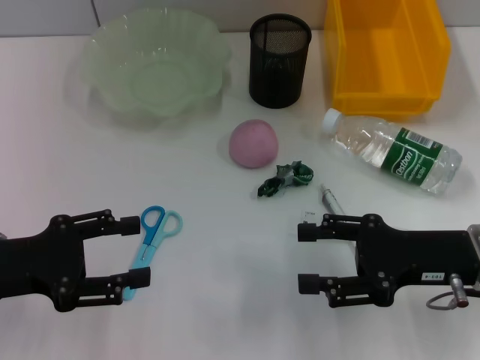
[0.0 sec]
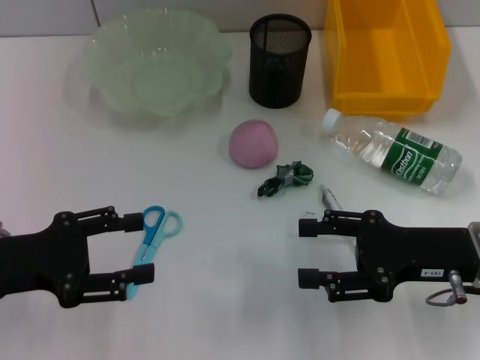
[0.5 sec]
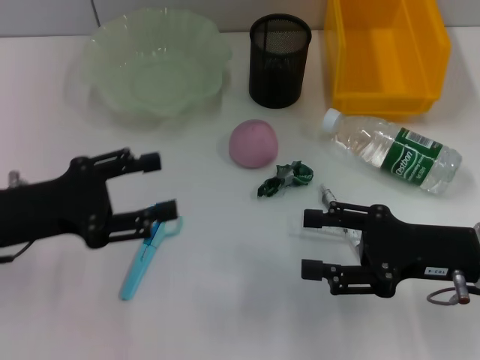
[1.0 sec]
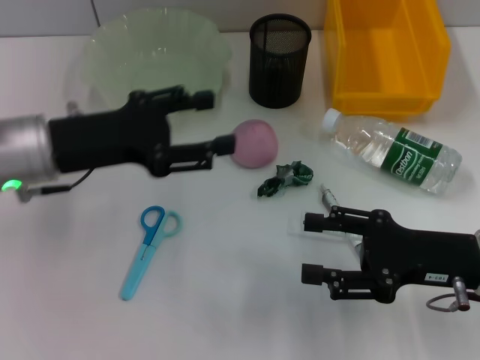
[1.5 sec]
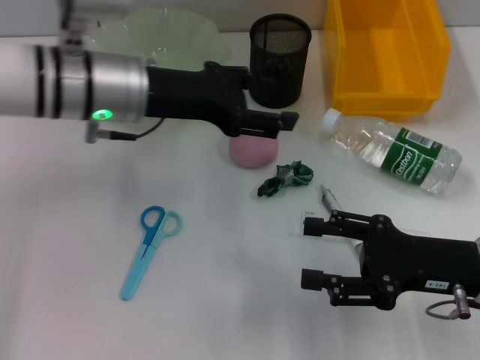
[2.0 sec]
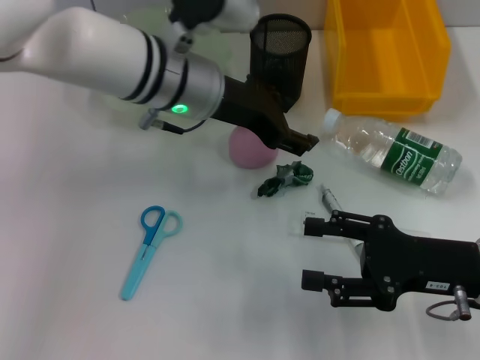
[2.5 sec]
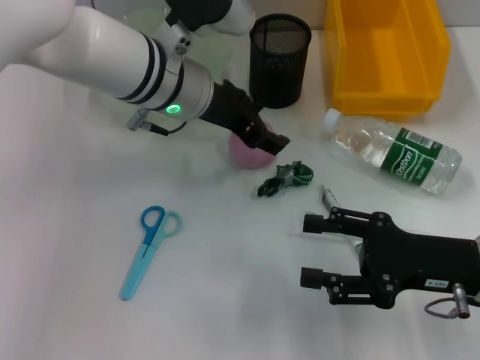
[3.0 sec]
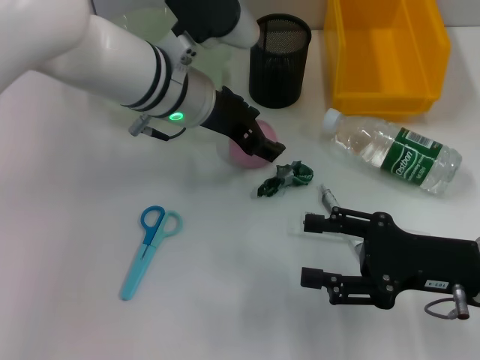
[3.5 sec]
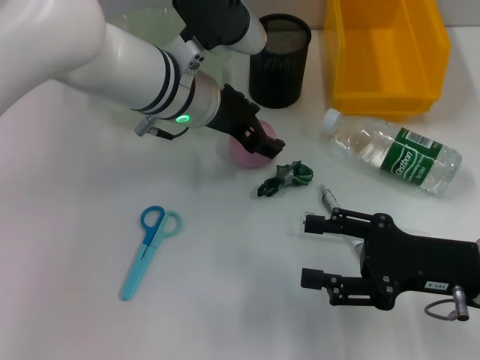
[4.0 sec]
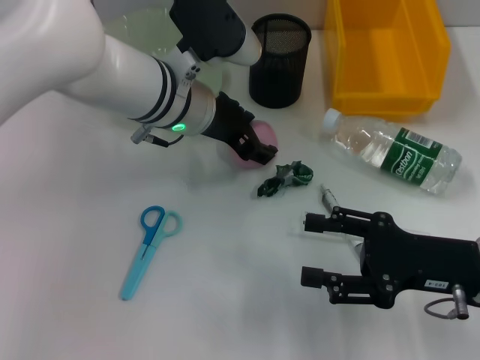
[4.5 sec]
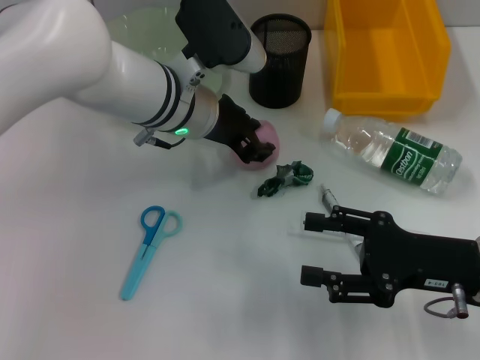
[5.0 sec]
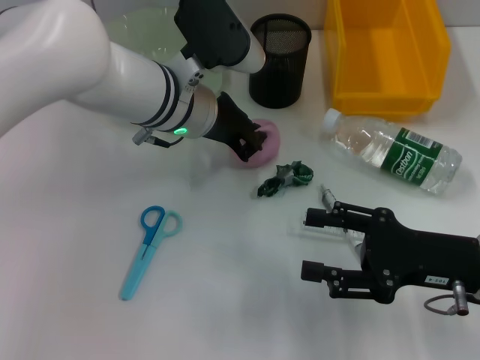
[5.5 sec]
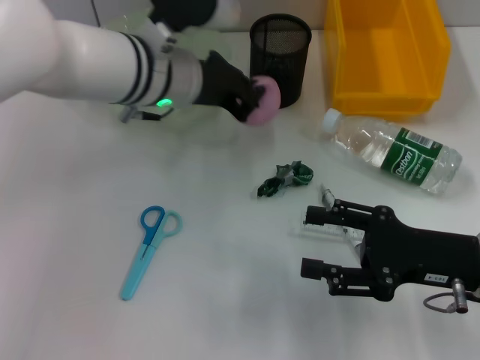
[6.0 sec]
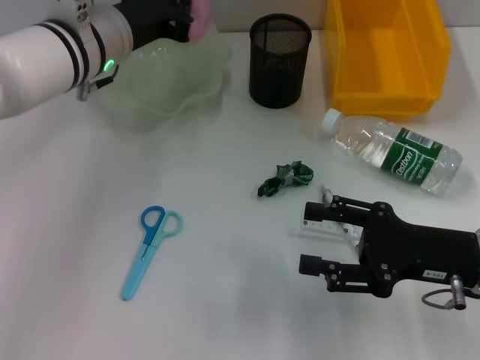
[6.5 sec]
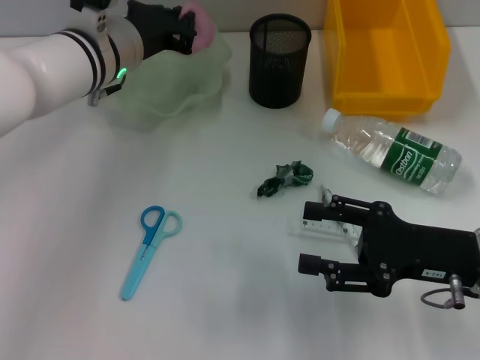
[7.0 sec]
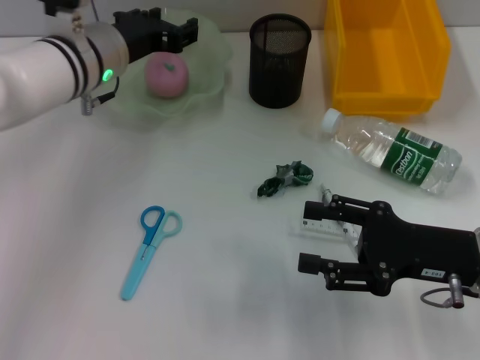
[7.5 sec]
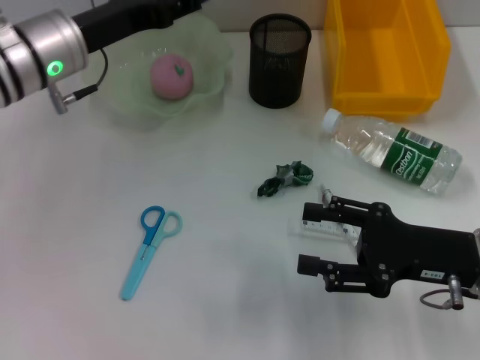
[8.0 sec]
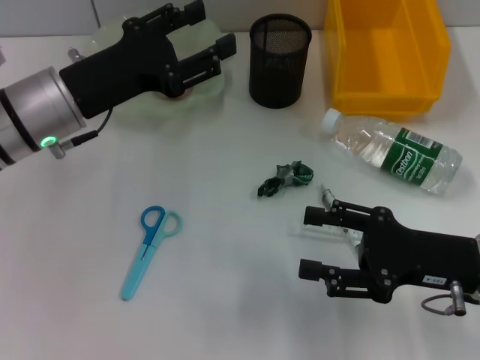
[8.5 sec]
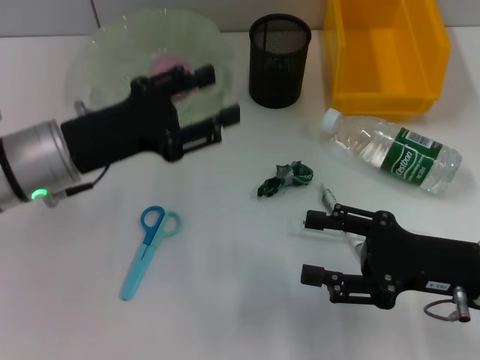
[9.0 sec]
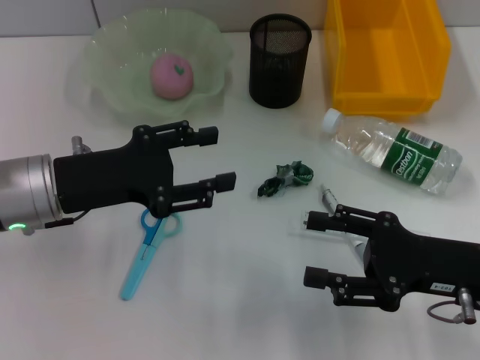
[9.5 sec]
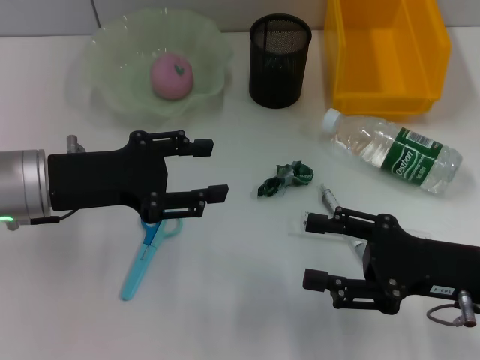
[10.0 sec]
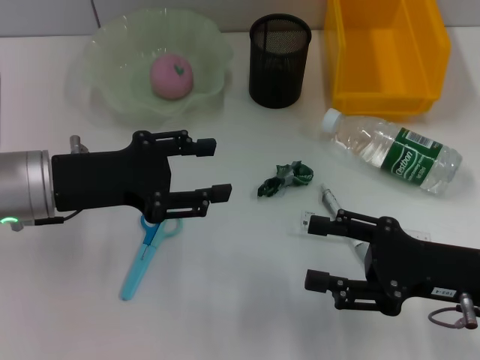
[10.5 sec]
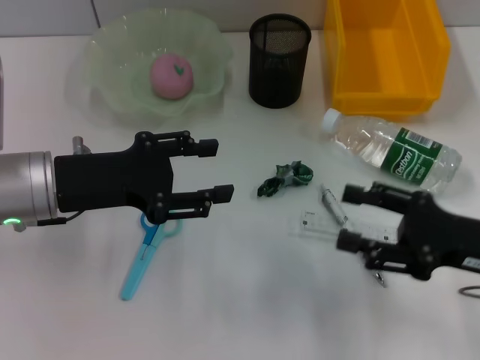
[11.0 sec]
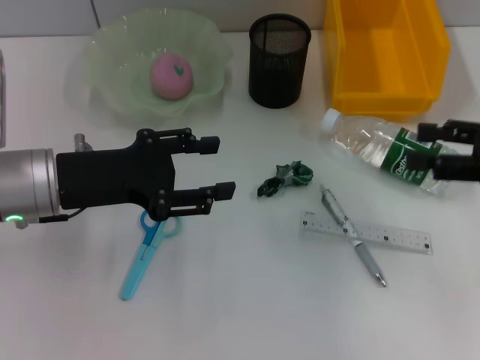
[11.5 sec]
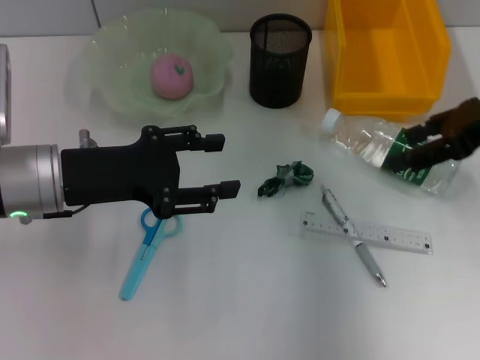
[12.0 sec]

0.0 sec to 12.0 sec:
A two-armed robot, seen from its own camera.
Step, 0.0 sec to 5.0 sec: Grab the peach with the left hand.
Step, 5.5 sec to 7.0 sec: Place the peach into the fruit bowl with the left hand.
0.0 sec to 2.0 sec: The left gripper travels to the right, forward and upward by approximately 20 cm.
2.0 sec to 4.0 sec: The left gripper is displaced to the right by some 5 cm.
4.0 sec to 6.0 sec: The left gripper closes its fingers.
6.0 sec to 8.0 sec: The left gripper shifts roughly 10 cm to the left, and opens its fingers.
8.0 sec to 10.0 sec: The left gripper is displaced backward by about 10 cm.
10.0 sec to 12.0 sec: The right gripper shifts about 20 cm upward and forward.

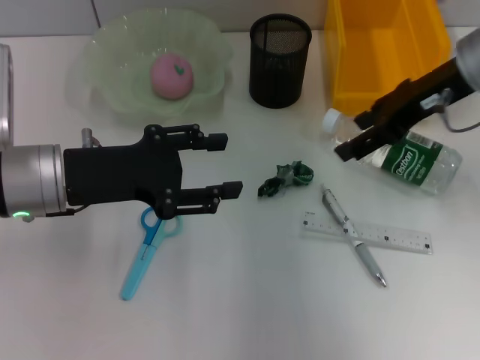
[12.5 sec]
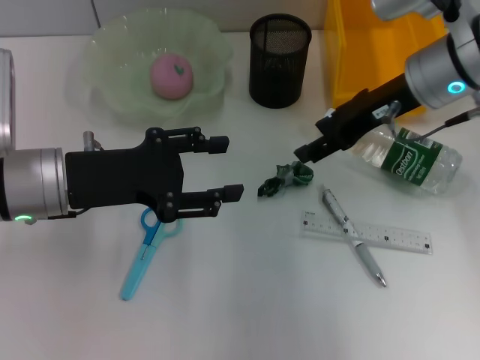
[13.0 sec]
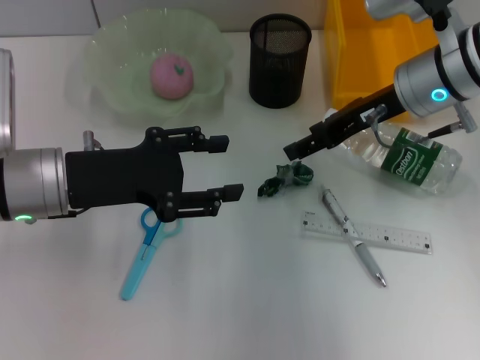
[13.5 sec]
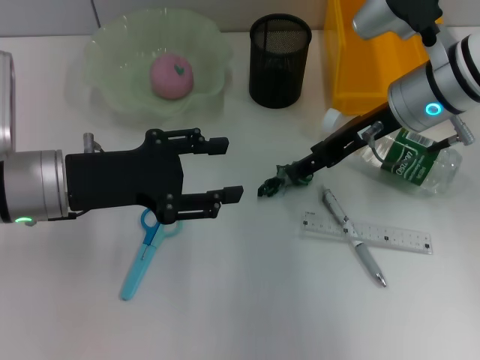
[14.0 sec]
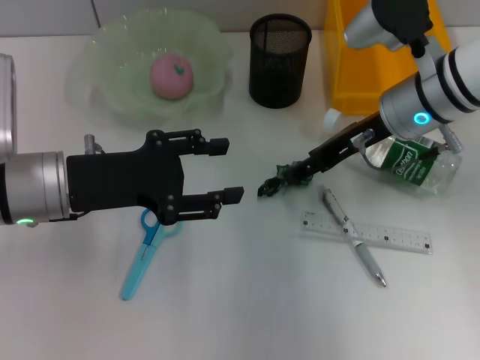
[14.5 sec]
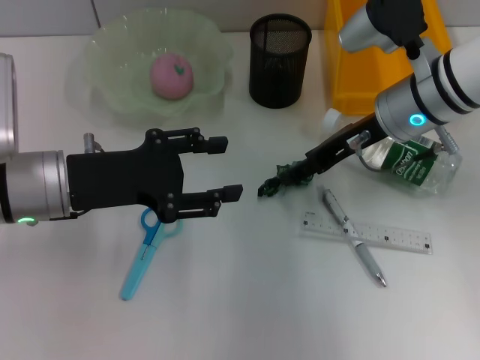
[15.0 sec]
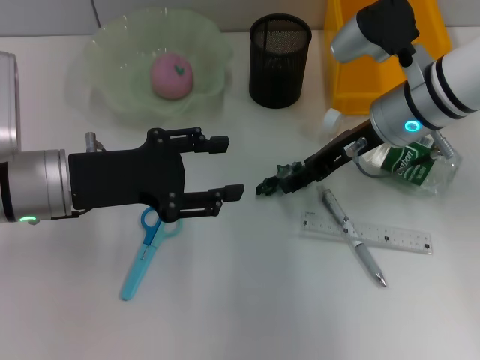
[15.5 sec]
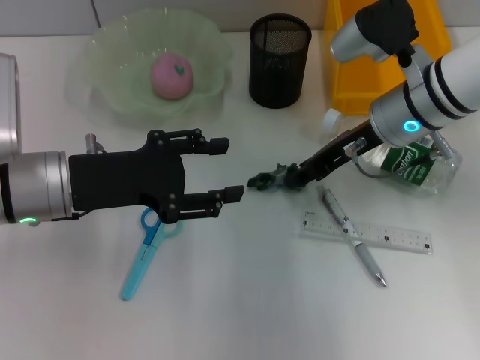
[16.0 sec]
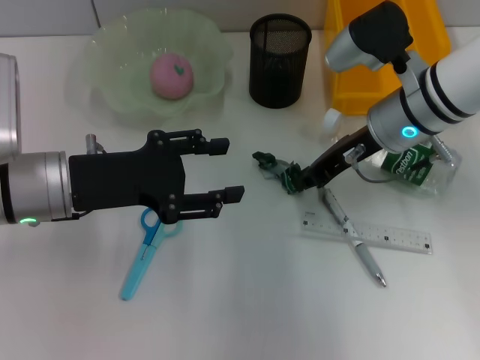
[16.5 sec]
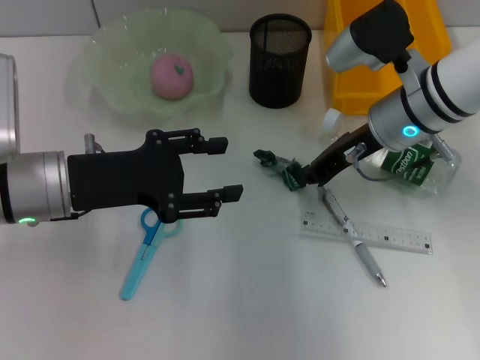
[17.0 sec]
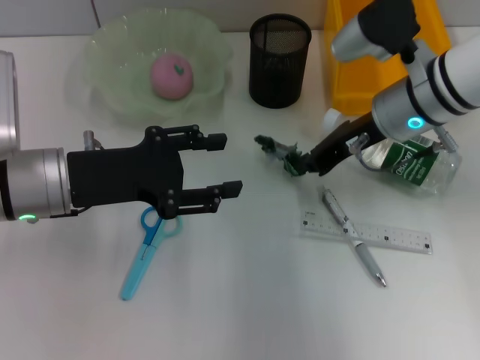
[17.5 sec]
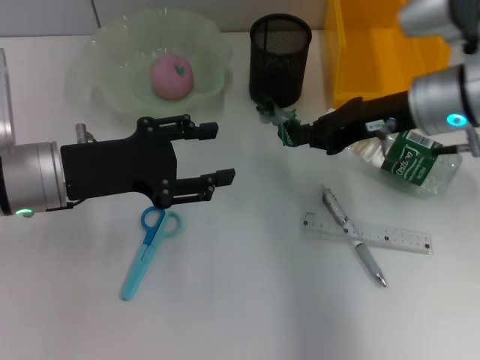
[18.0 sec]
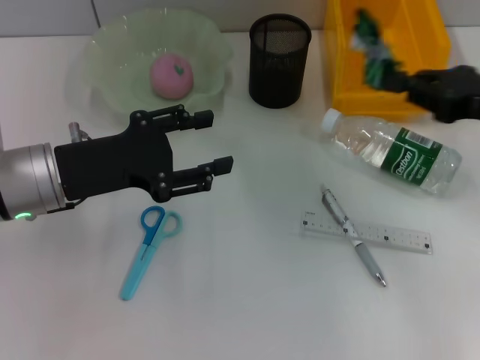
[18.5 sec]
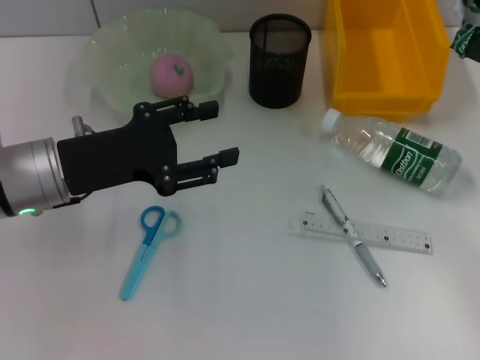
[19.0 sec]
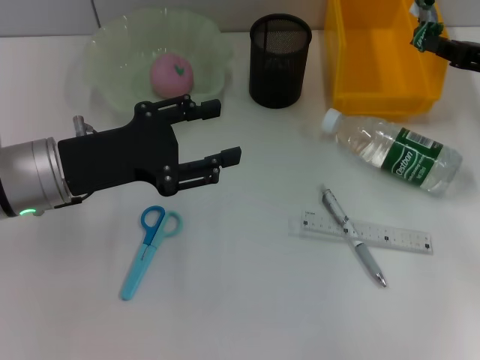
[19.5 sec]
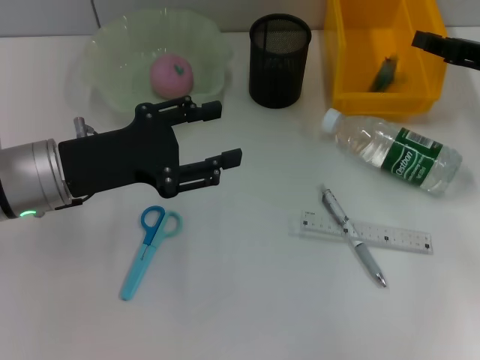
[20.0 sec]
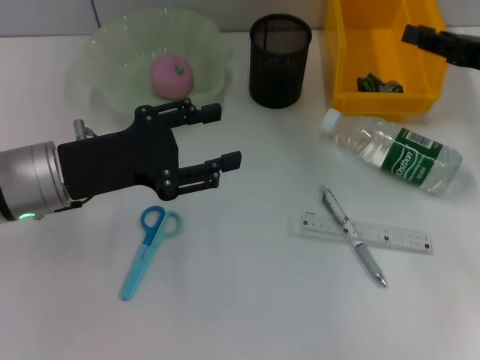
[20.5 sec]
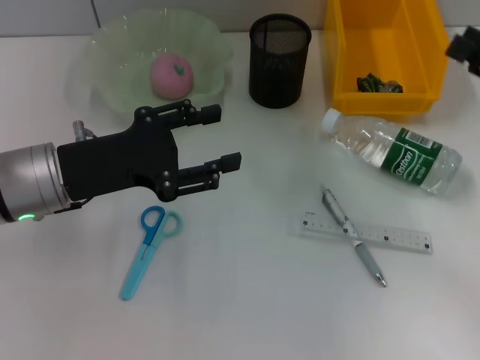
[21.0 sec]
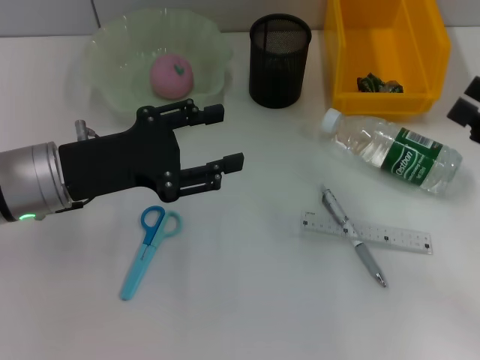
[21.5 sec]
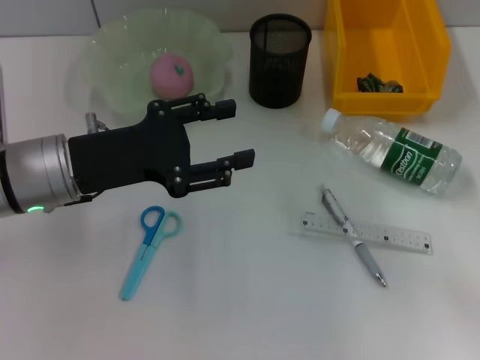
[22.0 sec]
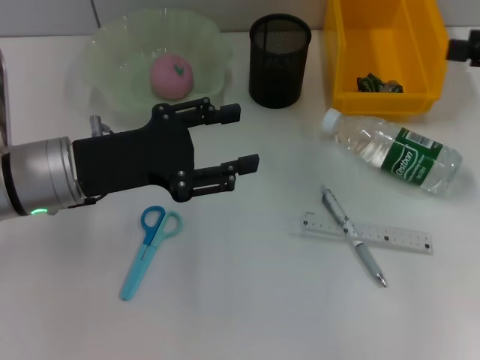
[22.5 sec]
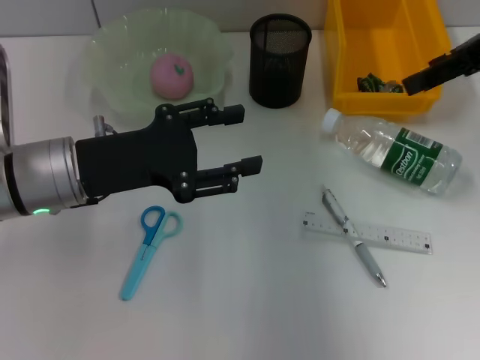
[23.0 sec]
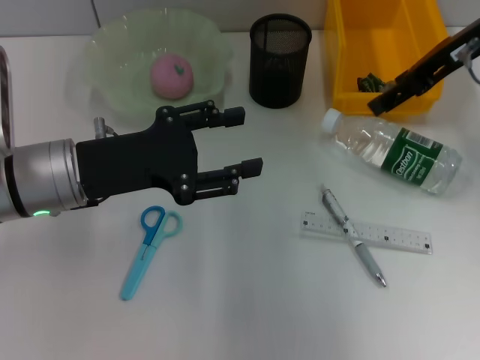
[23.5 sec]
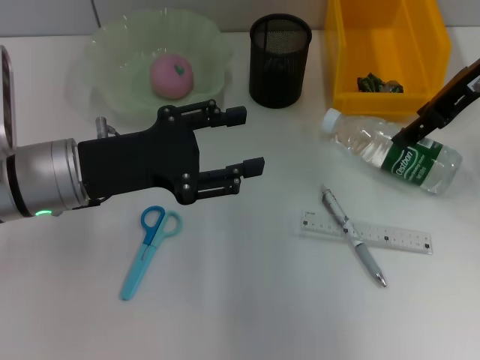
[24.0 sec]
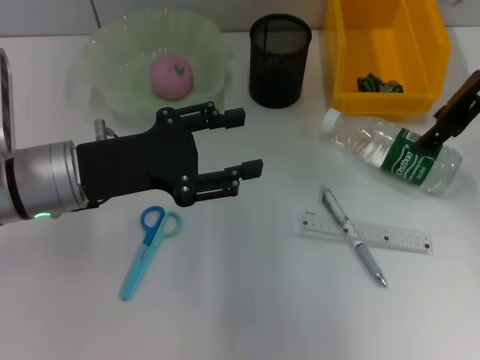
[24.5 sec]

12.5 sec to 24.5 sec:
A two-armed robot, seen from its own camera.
Step, 12.5 sec to 17.0 sec: Grab the plastic with the right hand.
Step, 17.5 sec to 20.5 sec: Place the plastic into the trash can with the right hand.
12.5 sec to 14.5 sec: The right gripper is displaced downward by some 5 cm.
14.5 sec to 16.5 sec: The right gripper closes up.
16.5 sec to 18.5 sec: The right gripper travels to the right and backward by approximately 15 cm.
20.5 sec to 22.5 sec: The right gripper travels upward by approximately 5 cm, travels backward and back again, about 10 cm each way, and opens.
22.5 sec to 24.5 sec: The right gripper goes approximately 15 cm to the left and forward.

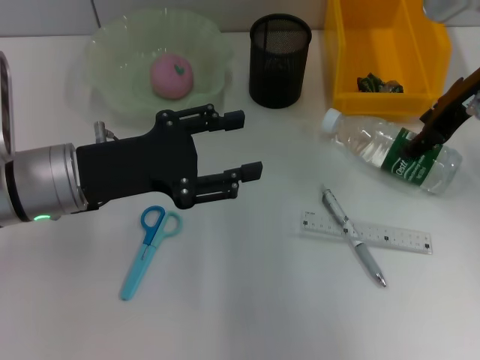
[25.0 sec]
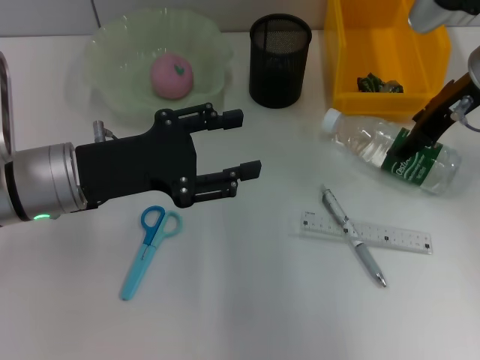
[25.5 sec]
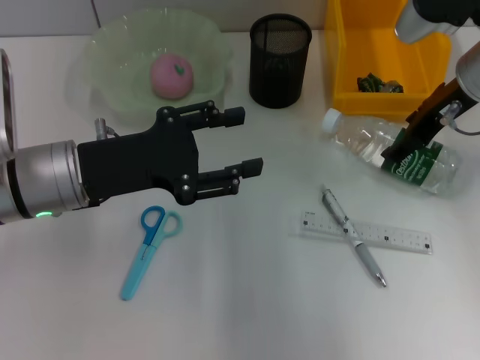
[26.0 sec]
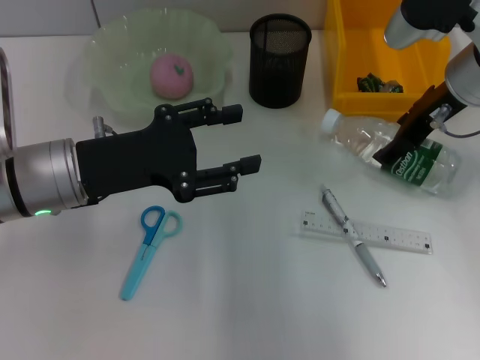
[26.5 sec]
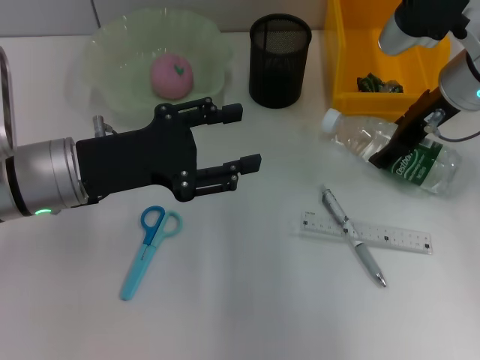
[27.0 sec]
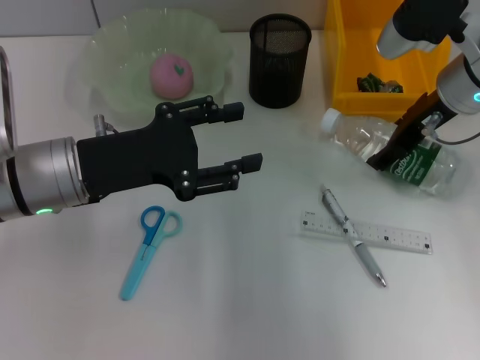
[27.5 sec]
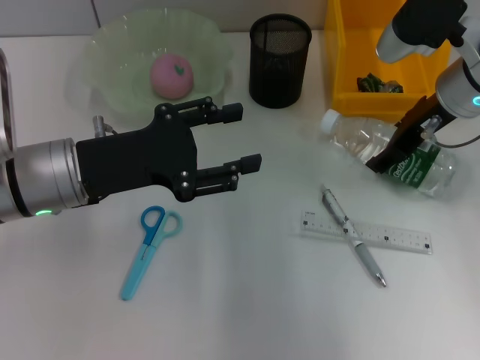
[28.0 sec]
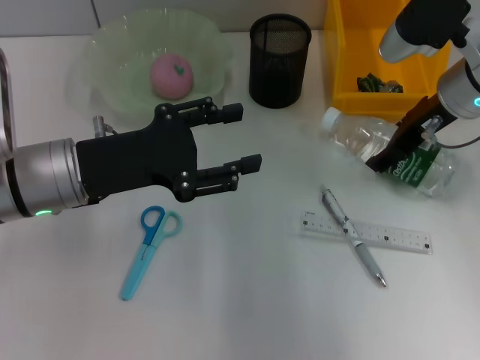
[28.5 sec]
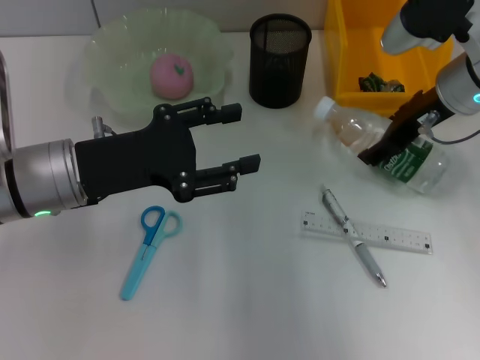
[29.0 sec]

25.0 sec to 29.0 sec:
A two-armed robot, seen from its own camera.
Step, 25.0 sec to 28.5 sec: Grab the water bottle with the right hand.
25.0 sec to 29.0 sec: There are only small adjustments of the grippers.
